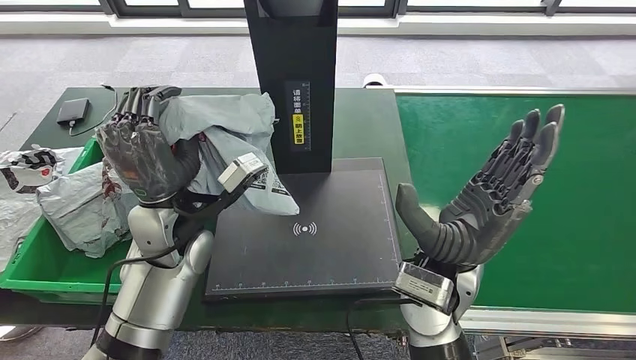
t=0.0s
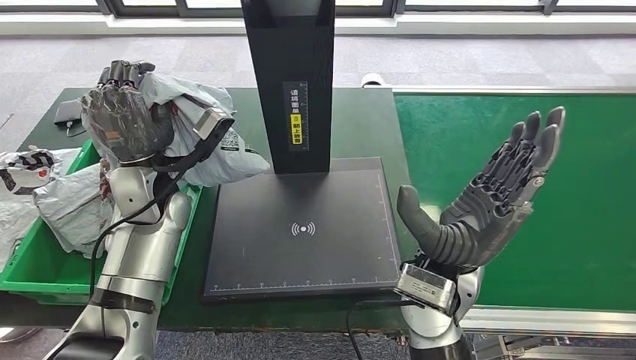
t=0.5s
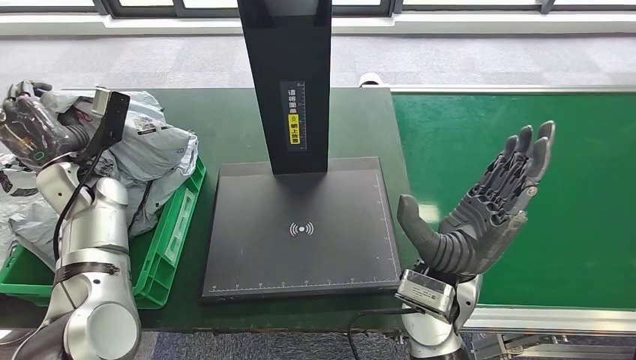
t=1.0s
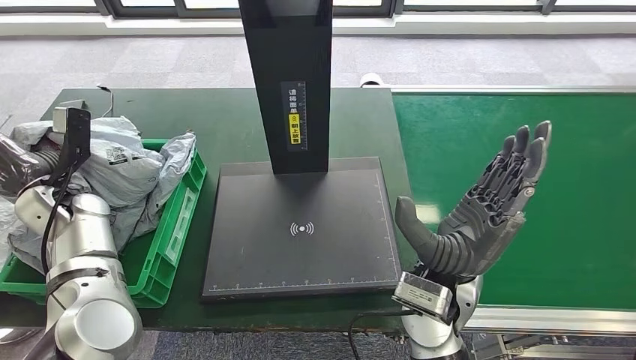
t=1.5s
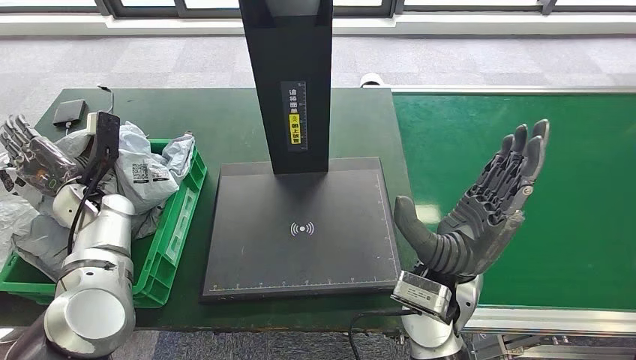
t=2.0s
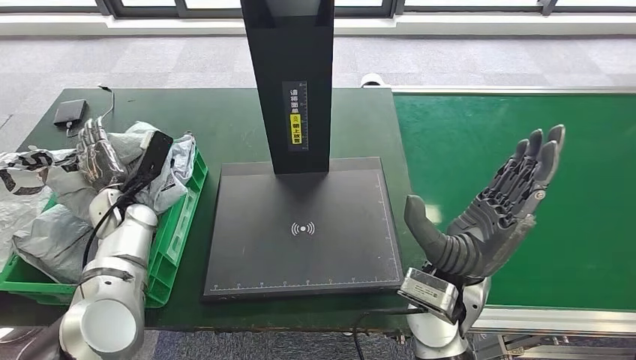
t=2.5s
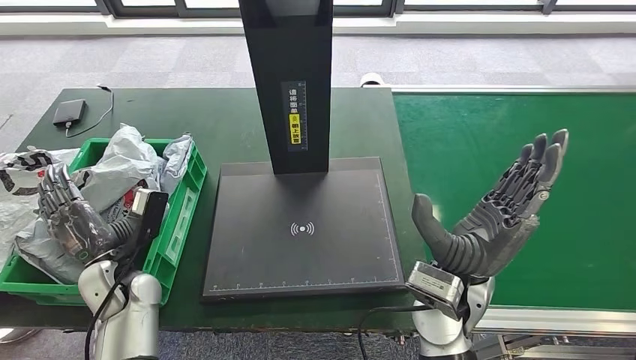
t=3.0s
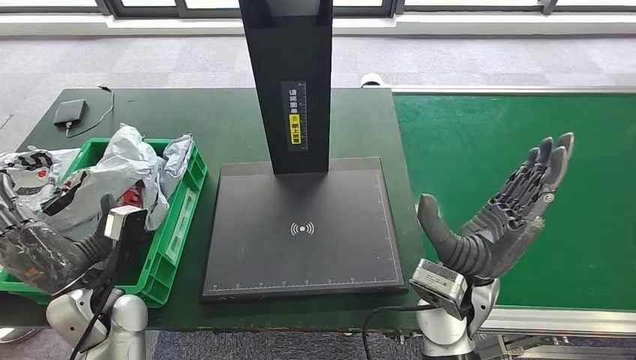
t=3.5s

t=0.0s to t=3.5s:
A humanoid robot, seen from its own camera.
Step, t=0.0s to t=3.5s: Place the parcel into the delivery box.
t=2.0s to t=3.5s: The left hand travels backward and to the right by some 20 cm.

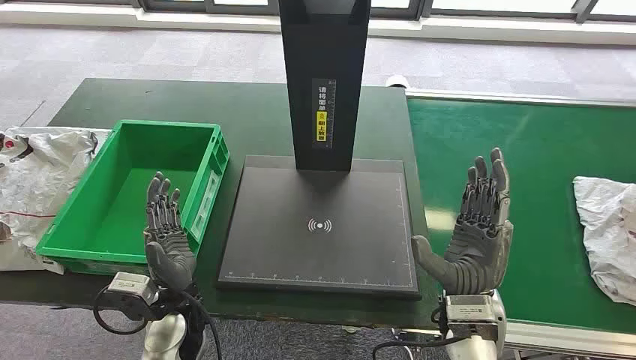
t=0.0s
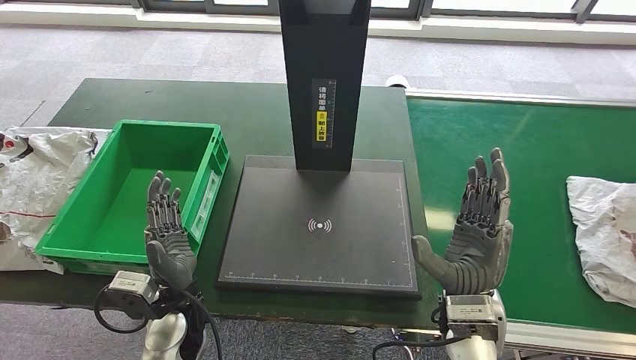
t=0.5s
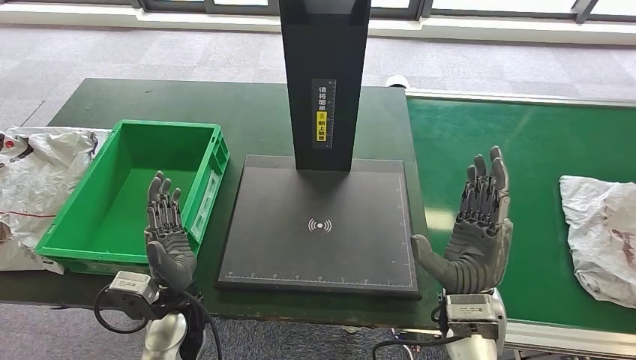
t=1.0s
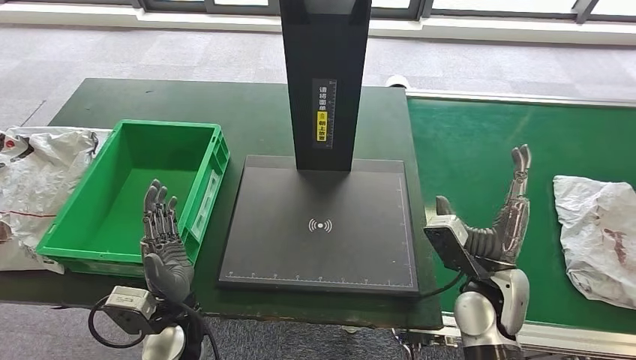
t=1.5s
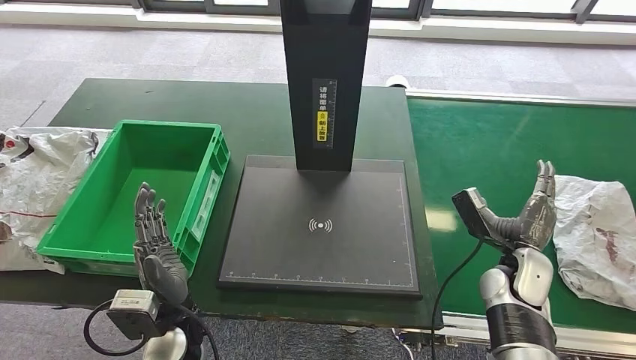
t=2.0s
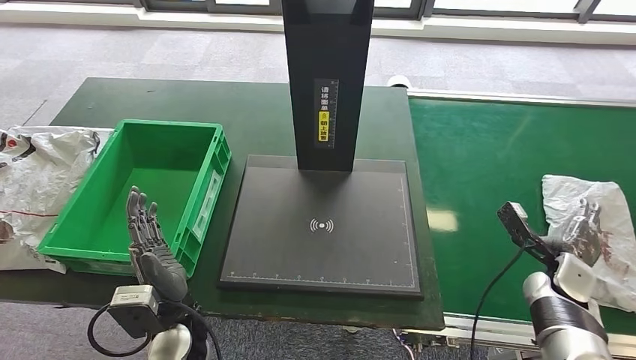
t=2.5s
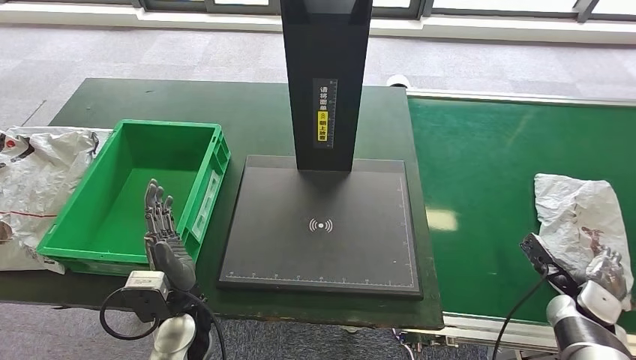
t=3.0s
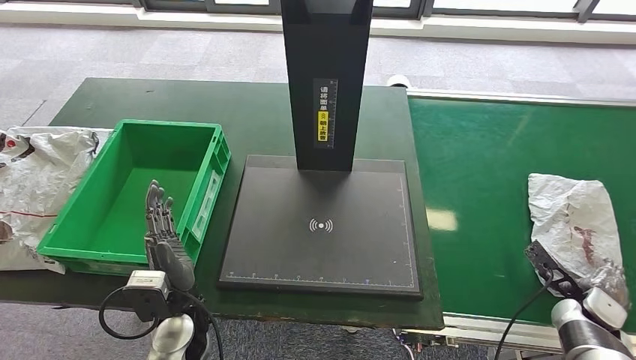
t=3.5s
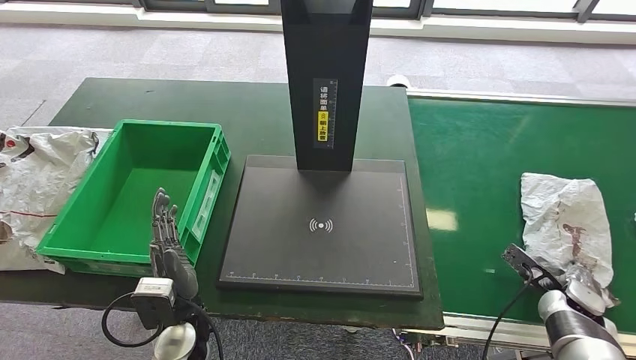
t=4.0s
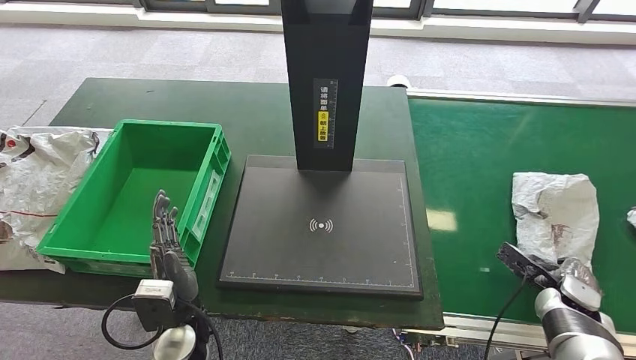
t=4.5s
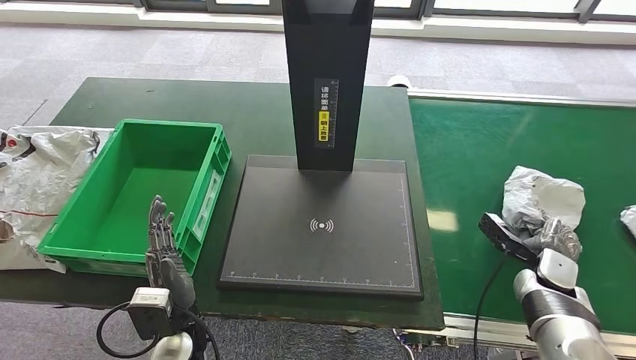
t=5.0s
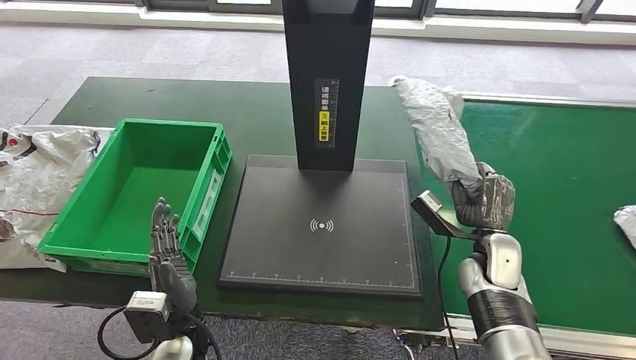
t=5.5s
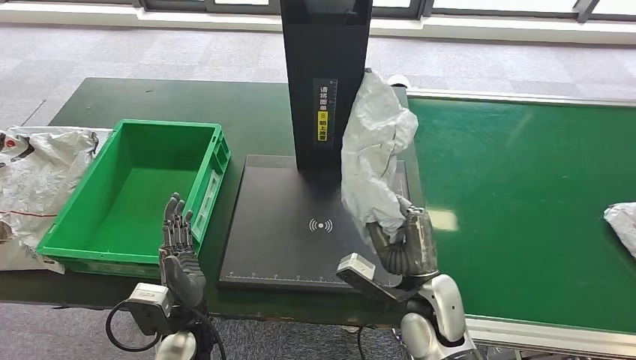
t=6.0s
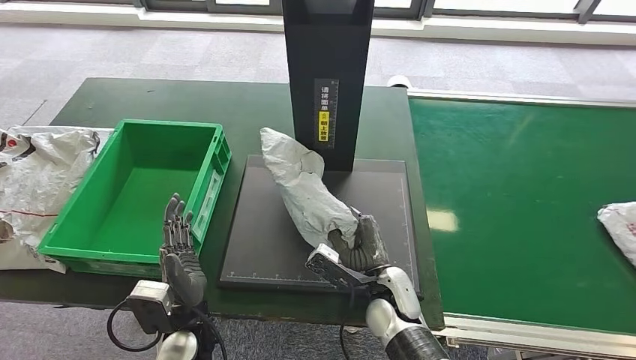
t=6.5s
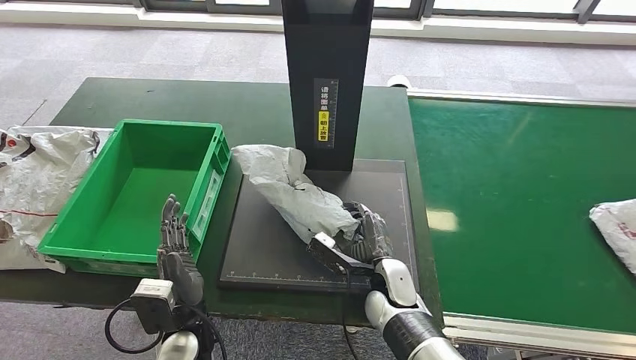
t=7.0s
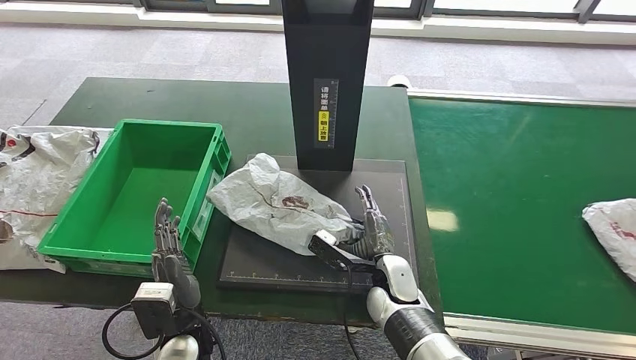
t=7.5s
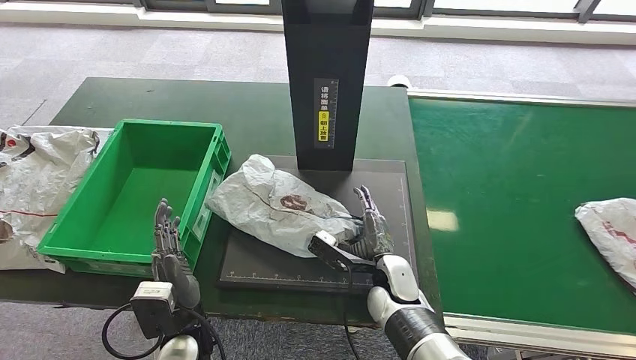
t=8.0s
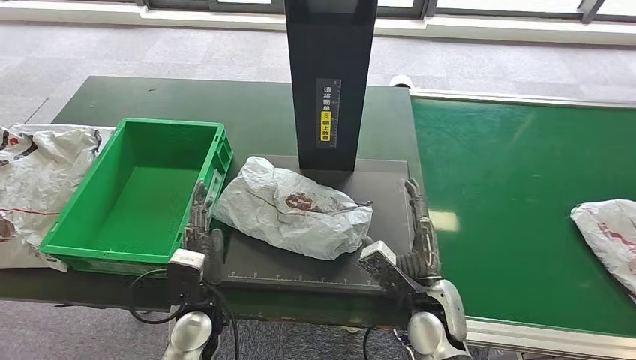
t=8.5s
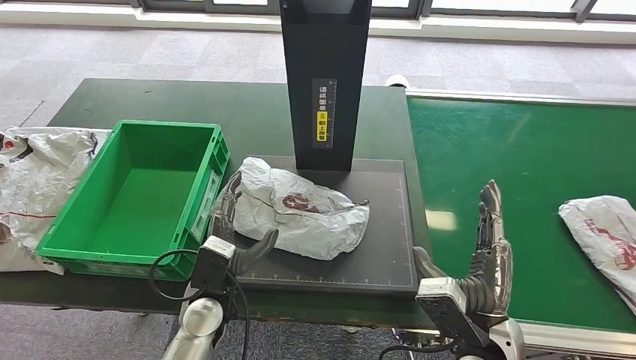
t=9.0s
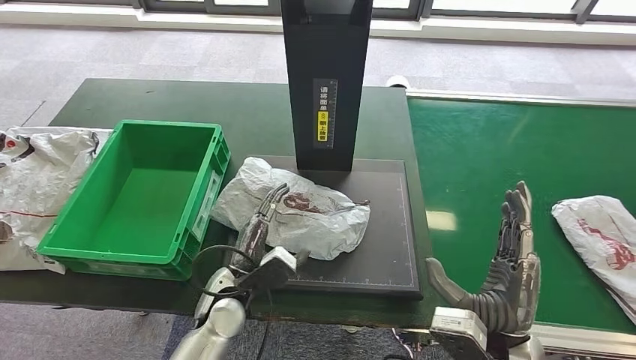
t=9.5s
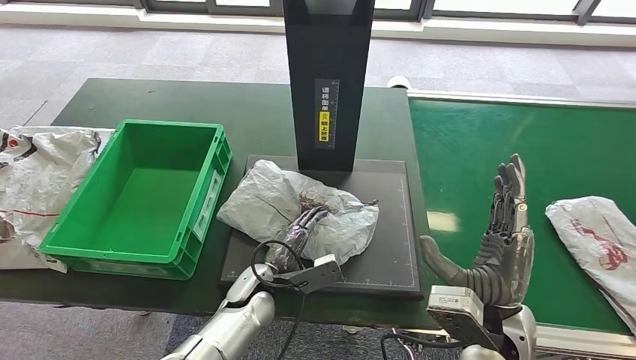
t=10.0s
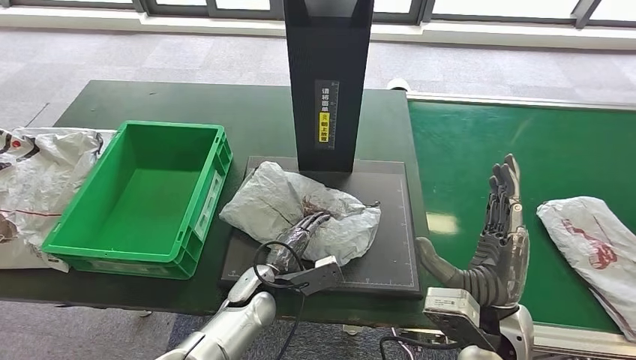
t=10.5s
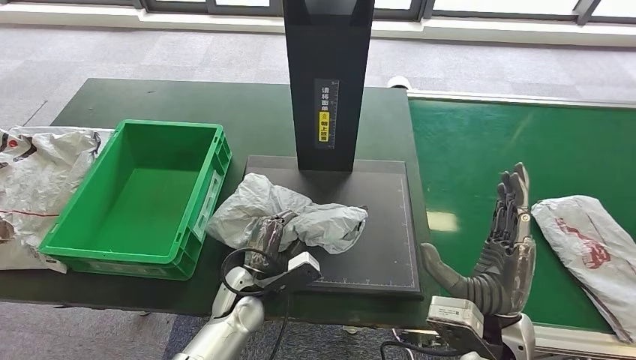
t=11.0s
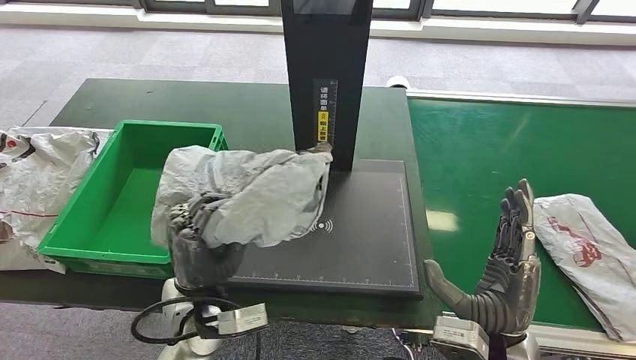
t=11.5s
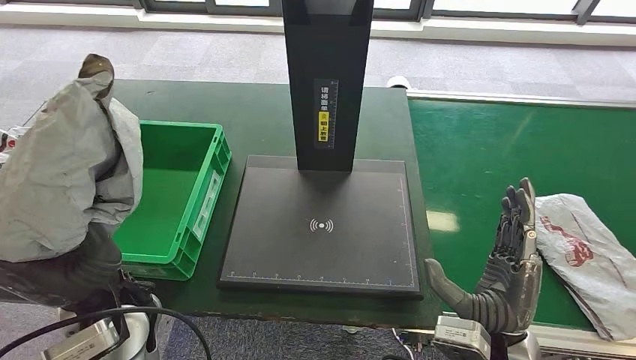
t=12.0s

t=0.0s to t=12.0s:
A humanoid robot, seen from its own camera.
Step, t=0.0s to t=5.5s: Take the parcel off the conveyor belt.
Step, t=6.0s to t=8.5s: Place the parcel onto the inbound machine.
Step, t=9.0s to t=11.5s: Pick up the parcel from the inbound machine.
t=2.0s to t=4.0s: The right hand heads to the right and downward, covering about 15 cm.
t=4.0s to t=6.0s: The right hand is displaced to the left by about 25 cm.
t=6.0s to t=8.0s: The right hand goes about 10 cm downward and to the left.

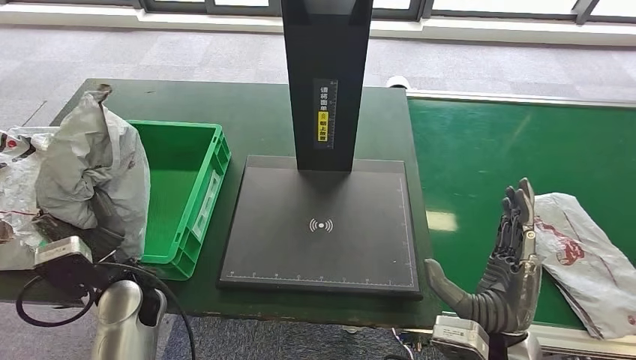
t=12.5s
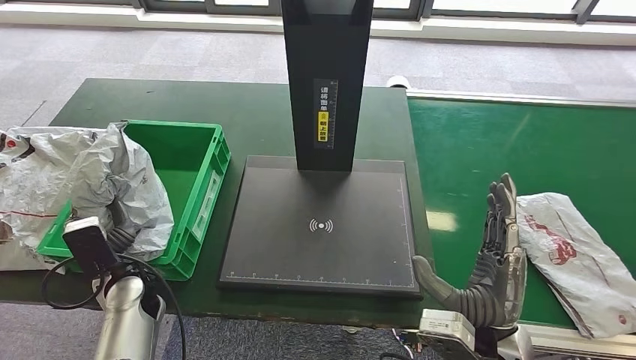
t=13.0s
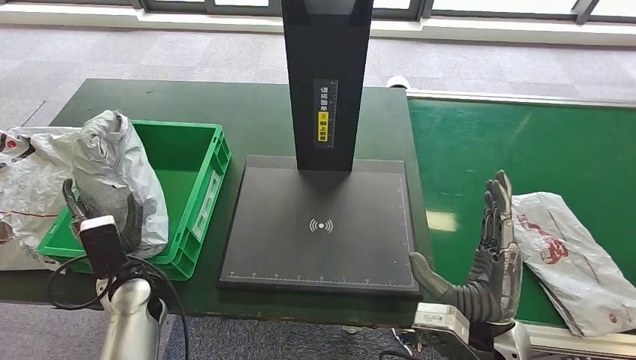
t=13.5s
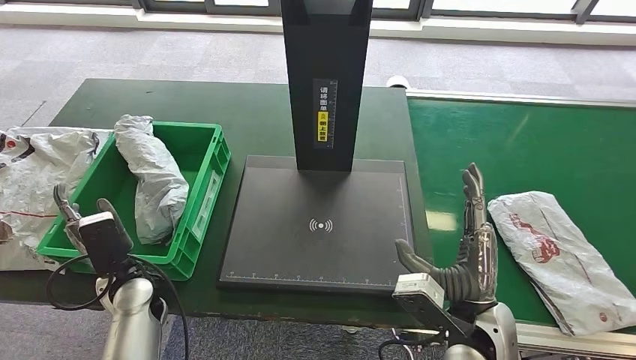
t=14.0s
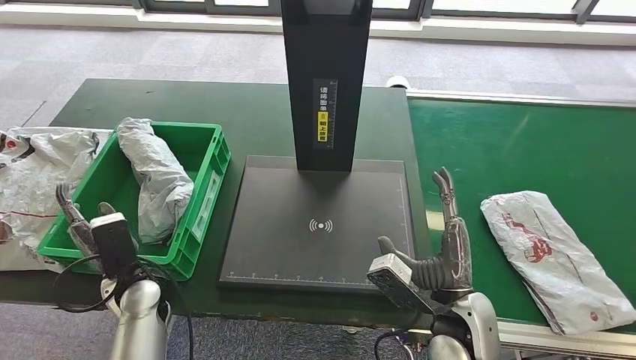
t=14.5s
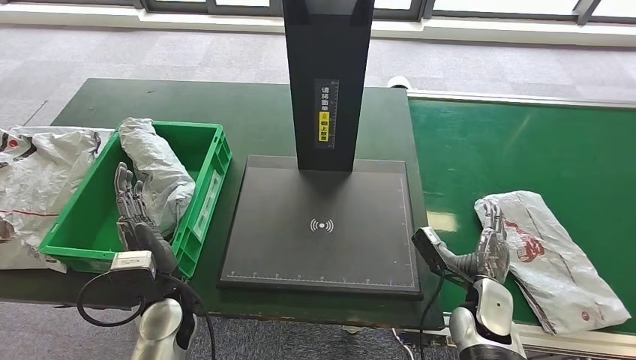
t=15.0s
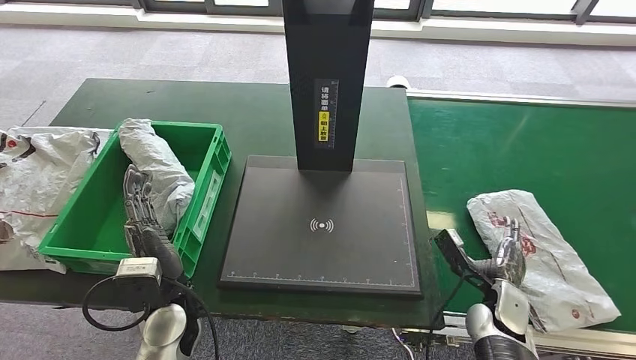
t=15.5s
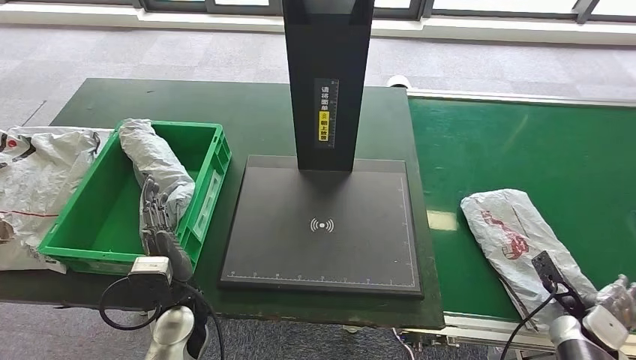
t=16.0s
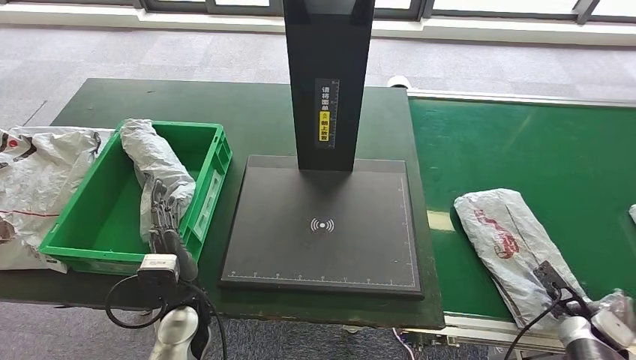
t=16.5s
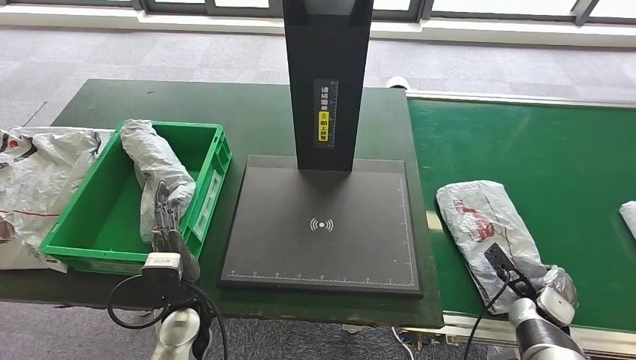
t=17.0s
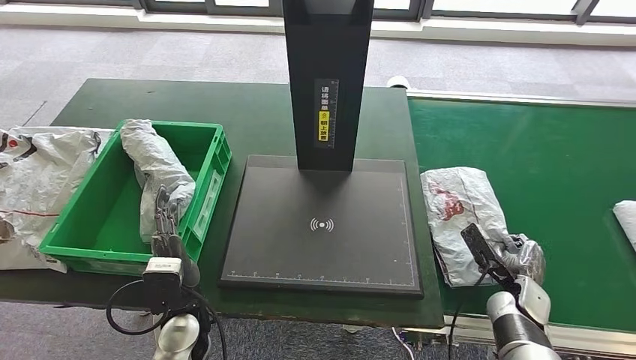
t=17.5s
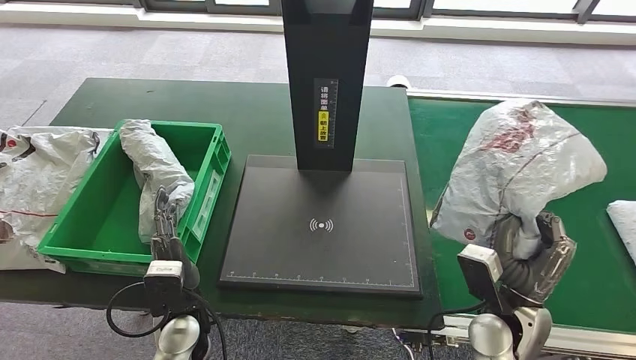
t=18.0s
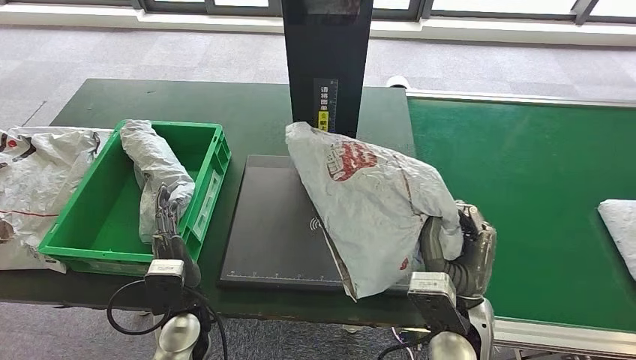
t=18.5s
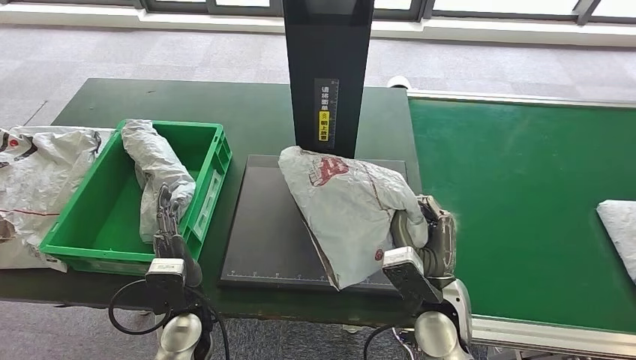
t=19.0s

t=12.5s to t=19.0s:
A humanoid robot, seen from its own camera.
Step, t=12.5s to t=14.5s: Put the parcel inside the courier box.
Step, t=15.5s to t=18.0s: Pick up the parcel from the conveyor belt.
t=12.5s to t=14.5s: The left hand heads downward, covering approximately 5 cm. Meanwhile the right hand moves some 5 cm.
t=17.0s to t=19.0s: The right hand heads to the left and upward, covering about 25 cm.
